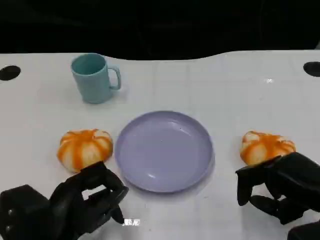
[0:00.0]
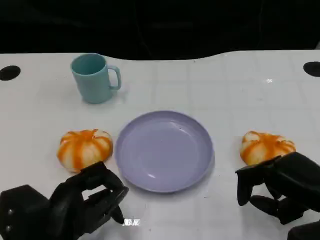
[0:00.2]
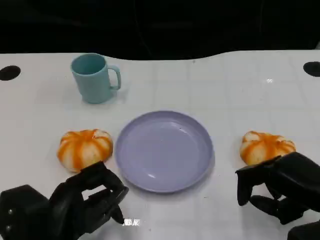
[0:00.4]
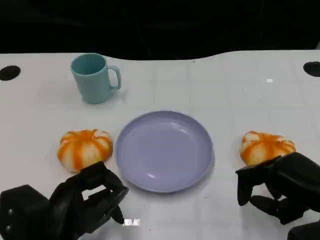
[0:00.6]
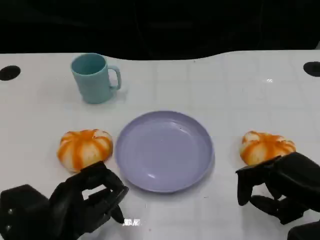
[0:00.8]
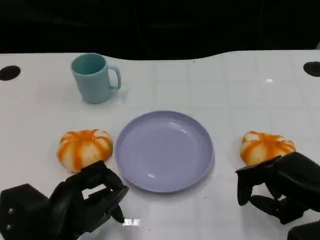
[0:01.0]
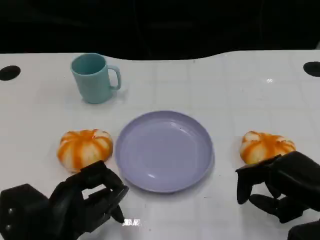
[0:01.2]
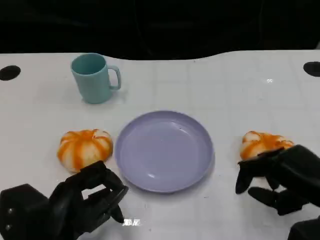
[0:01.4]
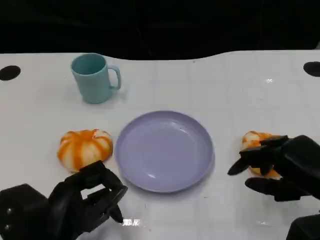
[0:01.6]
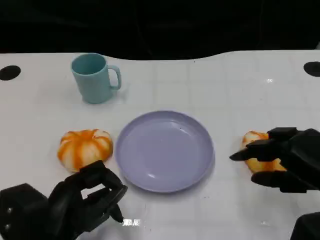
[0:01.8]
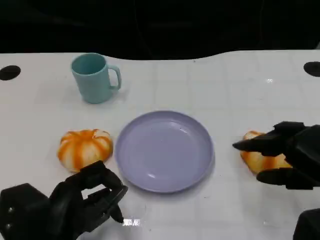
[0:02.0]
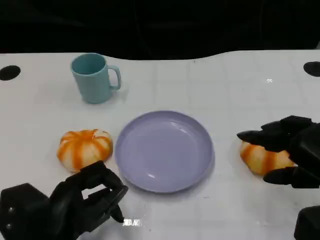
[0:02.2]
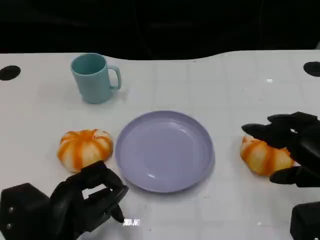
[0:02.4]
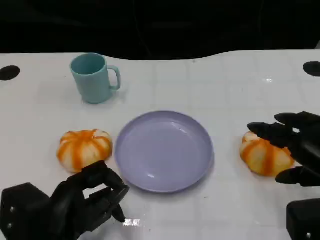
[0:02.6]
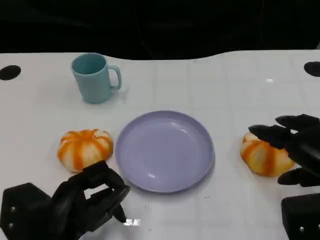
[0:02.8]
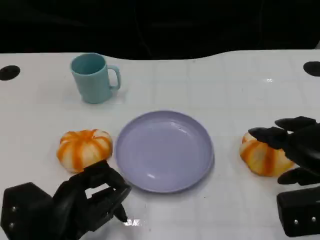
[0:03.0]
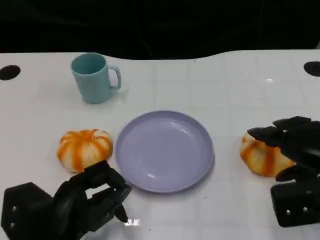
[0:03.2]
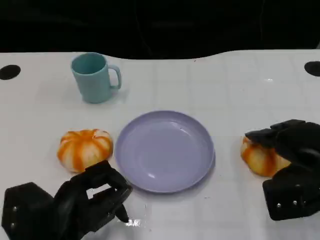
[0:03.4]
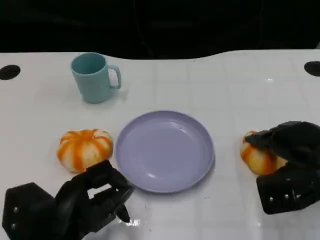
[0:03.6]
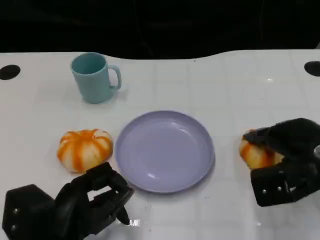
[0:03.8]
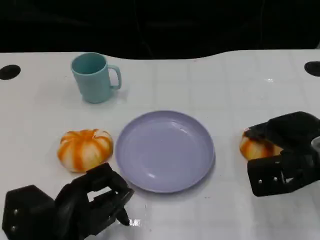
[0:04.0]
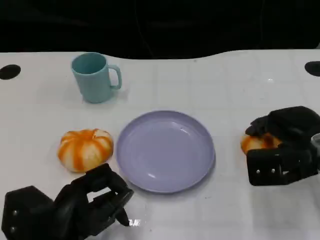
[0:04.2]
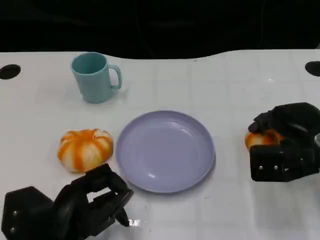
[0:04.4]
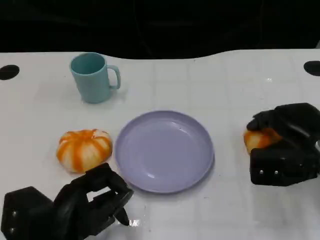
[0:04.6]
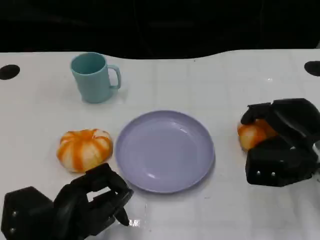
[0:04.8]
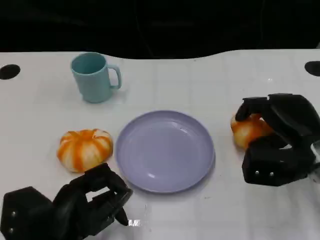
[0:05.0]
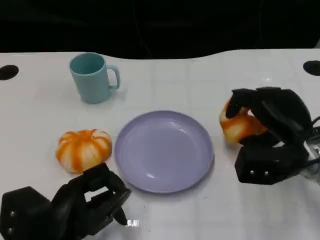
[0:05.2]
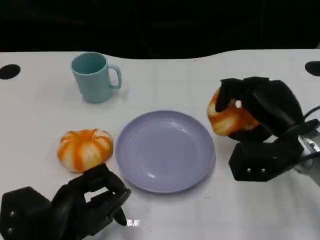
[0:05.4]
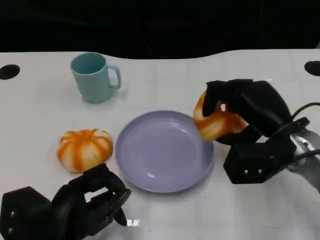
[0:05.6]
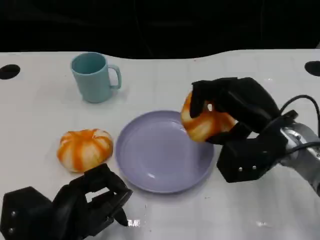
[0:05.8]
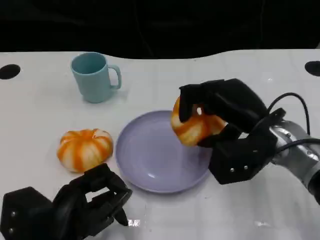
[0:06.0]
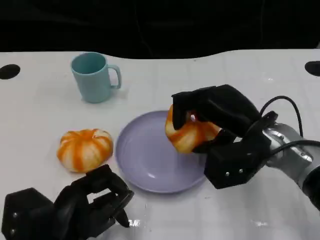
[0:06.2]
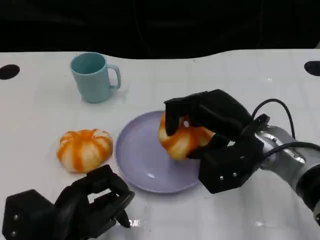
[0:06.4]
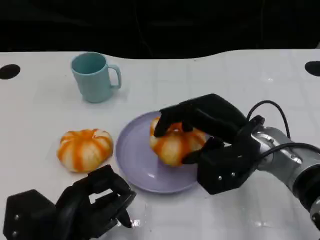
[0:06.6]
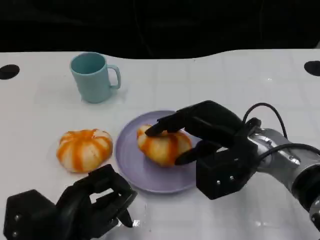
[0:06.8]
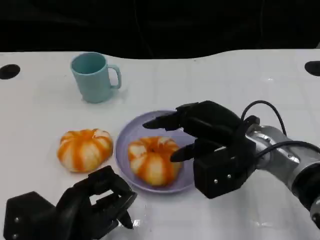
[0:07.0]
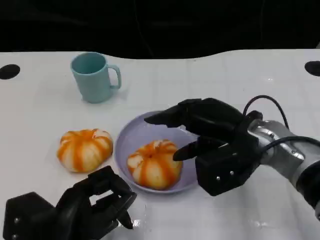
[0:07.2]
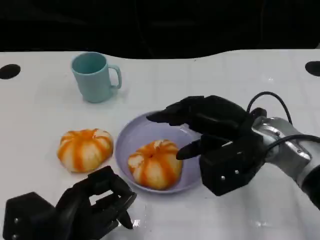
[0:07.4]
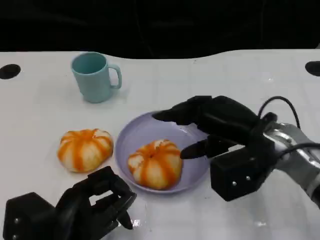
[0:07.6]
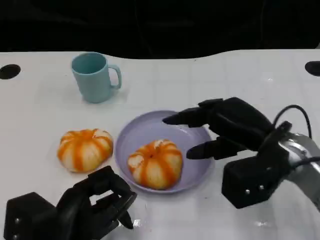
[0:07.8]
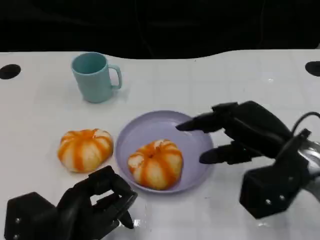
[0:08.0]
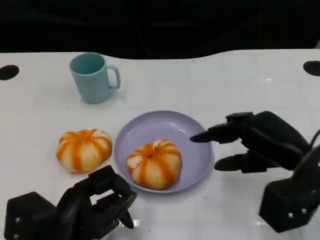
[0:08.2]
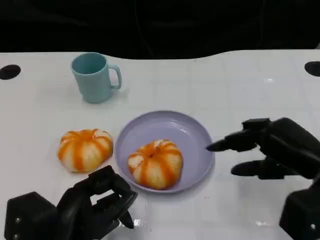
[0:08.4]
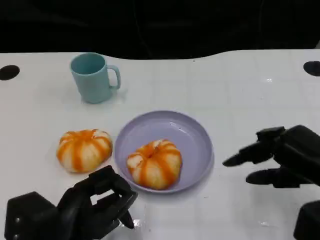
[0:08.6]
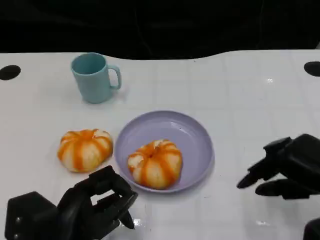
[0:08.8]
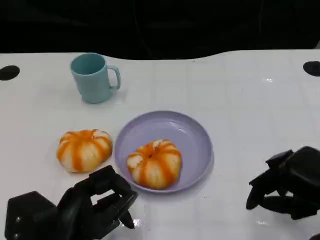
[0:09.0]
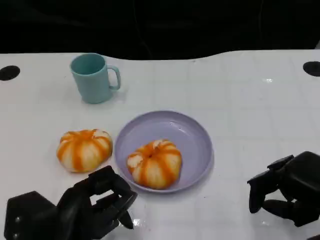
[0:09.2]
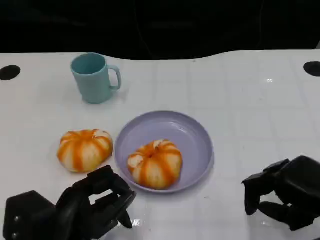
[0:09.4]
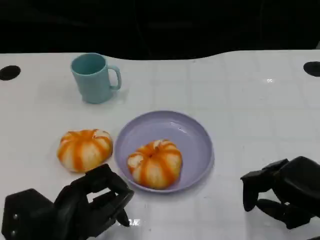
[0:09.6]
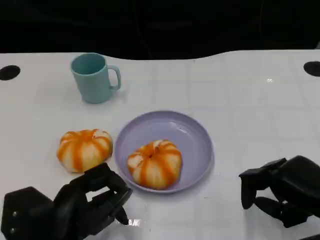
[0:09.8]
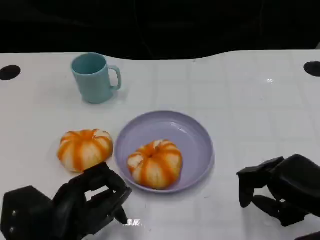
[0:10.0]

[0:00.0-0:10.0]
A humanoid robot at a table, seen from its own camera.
Task of the whole recording: Grasp the bread from the table and place it into the plate.
0:00.0 to 0:01.4: There are only small adjustments of the hands.
0:02.8 to 0:04.2: The right hand heads forward, covering some 10 cm.
0:04.2 to 0:05.8: The right hand travels to the left by about 5 cm.
0:07.2 to 0:08.6: The right hand moves to the right and backward, roughly 15 cm.
0:08.6 to 0:10.0: The hands make only small movements.

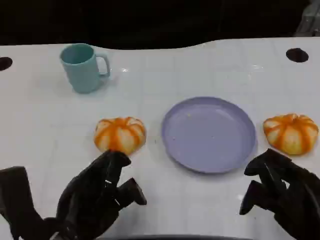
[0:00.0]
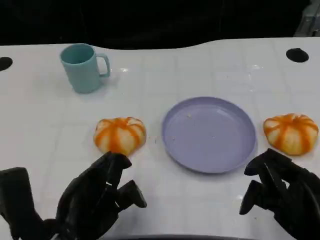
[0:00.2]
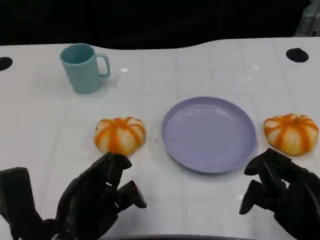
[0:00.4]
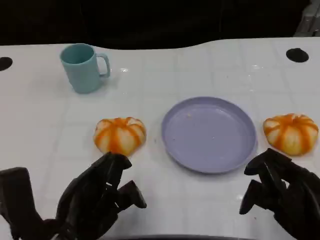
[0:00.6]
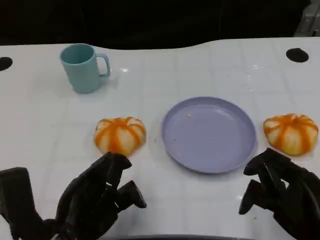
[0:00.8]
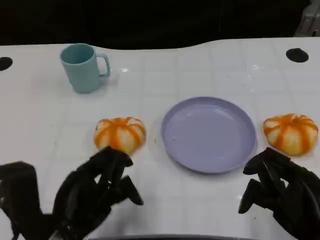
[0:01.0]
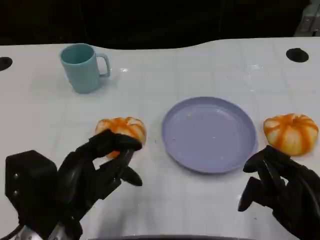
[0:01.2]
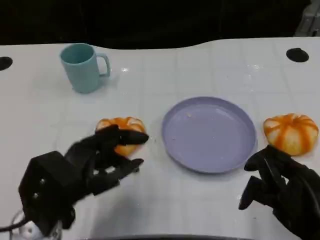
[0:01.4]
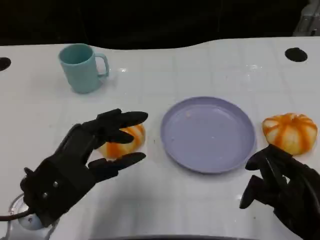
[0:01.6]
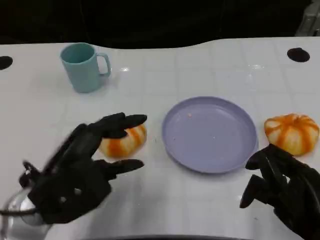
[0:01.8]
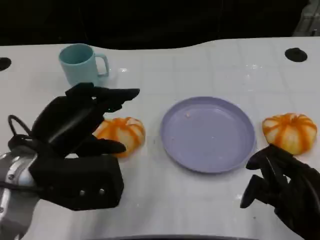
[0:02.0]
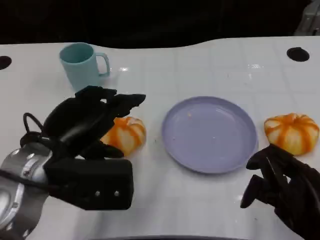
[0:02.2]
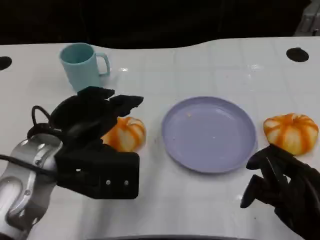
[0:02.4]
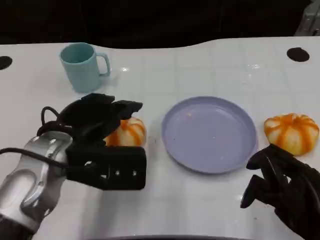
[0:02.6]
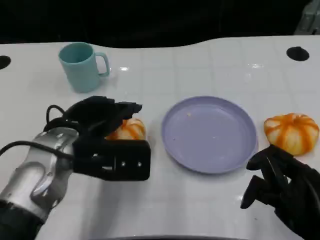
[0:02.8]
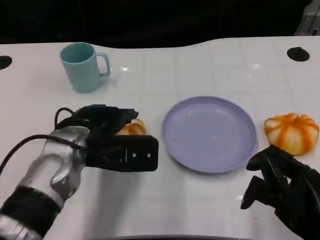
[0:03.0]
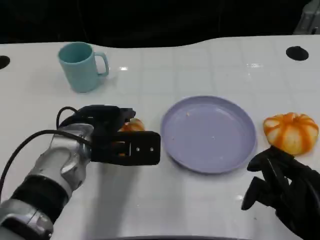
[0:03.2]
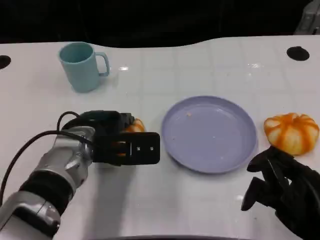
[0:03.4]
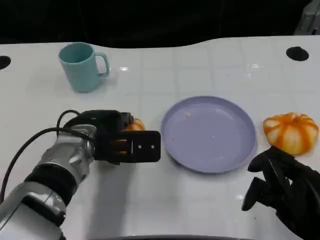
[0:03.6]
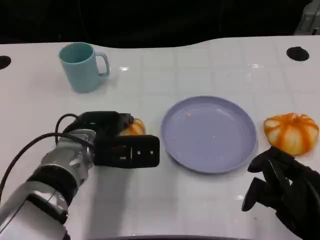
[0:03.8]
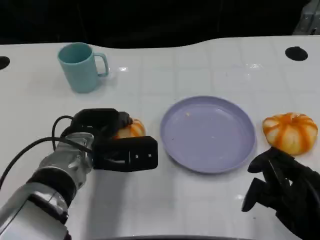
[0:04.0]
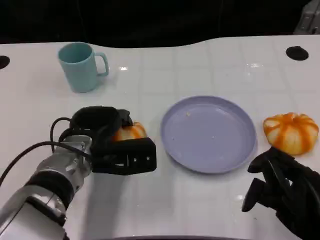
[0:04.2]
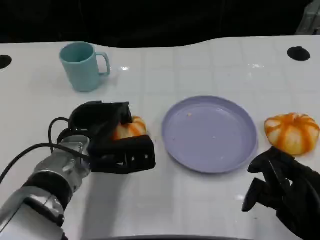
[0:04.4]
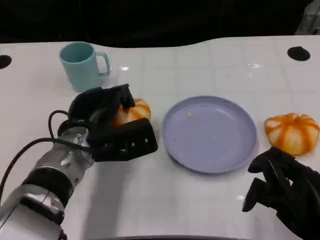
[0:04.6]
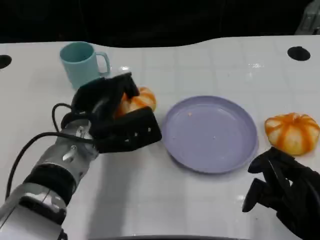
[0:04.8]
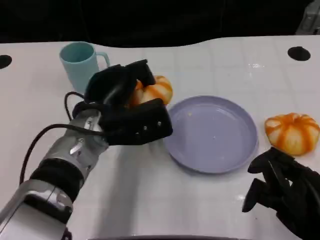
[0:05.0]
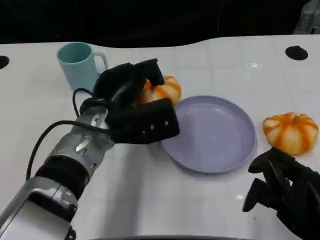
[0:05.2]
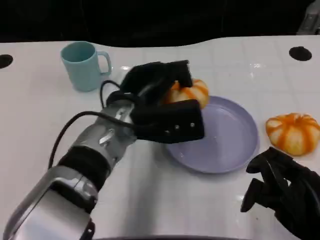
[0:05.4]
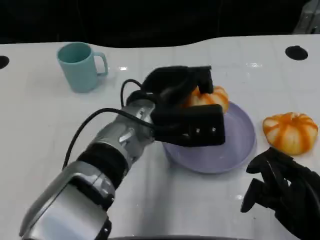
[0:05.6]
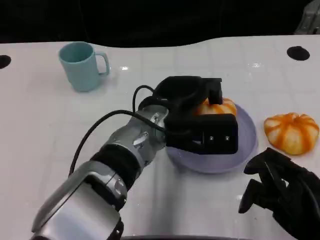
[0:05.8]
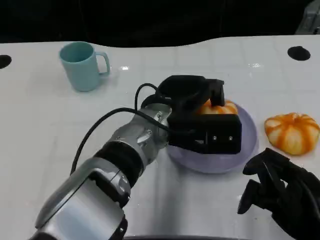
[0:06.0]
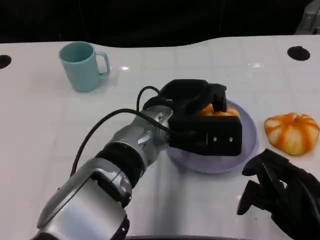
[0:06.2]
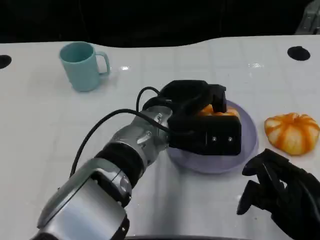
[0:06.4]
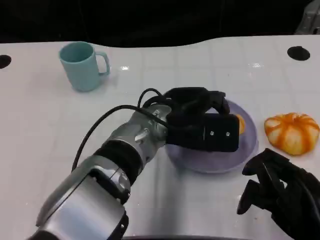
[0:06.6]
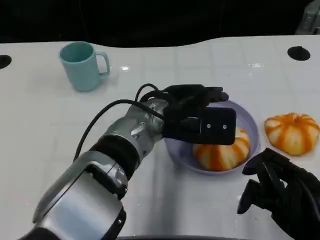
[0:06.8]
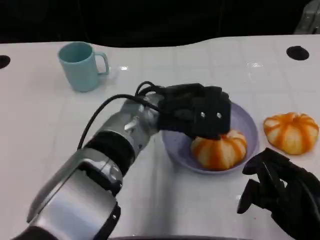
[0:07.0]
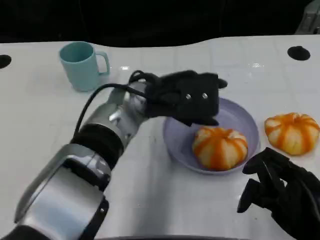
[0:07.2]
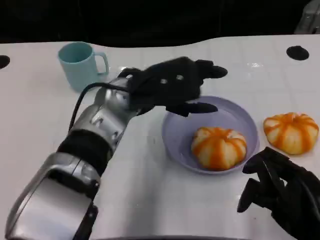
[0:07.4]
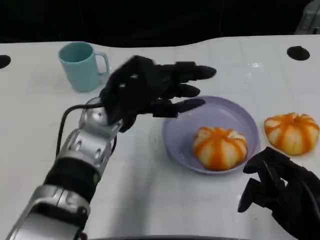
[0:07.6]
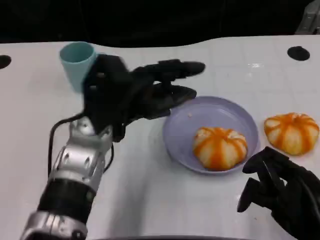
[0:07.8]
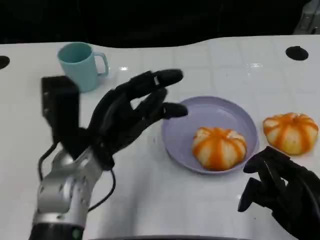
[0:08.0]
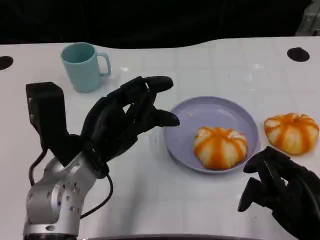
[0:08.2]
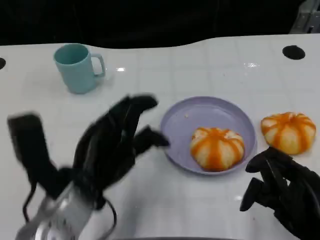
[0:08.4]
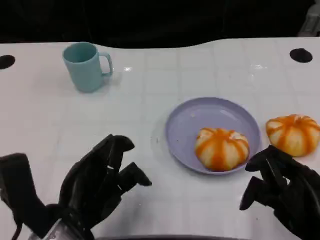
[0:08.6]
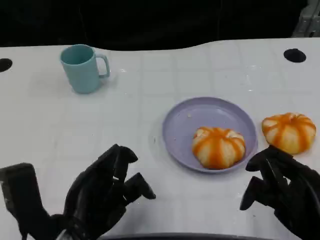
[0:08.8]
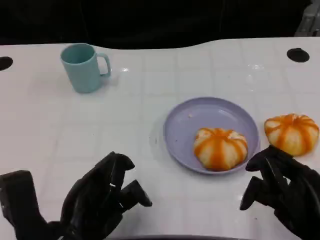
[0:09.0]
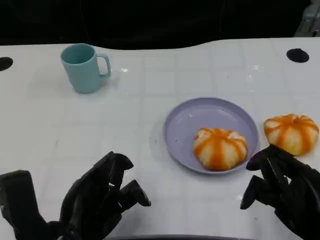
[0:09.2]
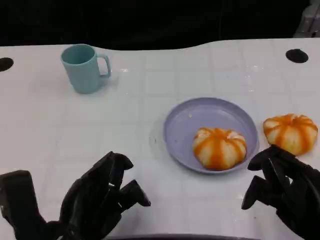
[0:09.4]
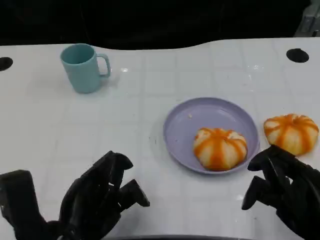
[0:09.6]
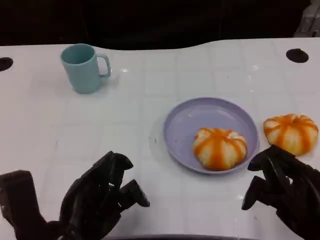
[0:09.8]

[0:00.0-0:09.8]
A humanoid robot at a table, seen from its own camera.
Task of the whole recording: Grasp the bread from the table and place it into the plate.
0:01.4 to 0:02.8: The left hand moves forward, about 10 cm.
0:02.8 to 0:04.2: The left hand is displaced downward by approximately 5 cm.
0:04.2 to 0:05.6: The left hand goes about 10 cm to the right and upward.
0:07.0 to 0:08.4: The left hand is displaced backward and to the left by about 15 cm.
0:08.4 to 0:09.8: The left hand ends up about 5 cm from where it was.
